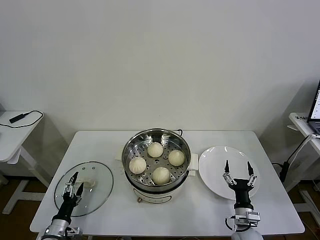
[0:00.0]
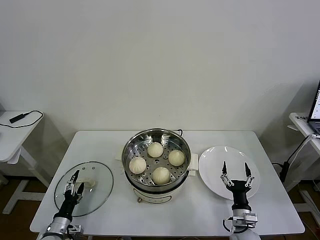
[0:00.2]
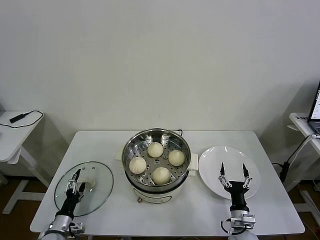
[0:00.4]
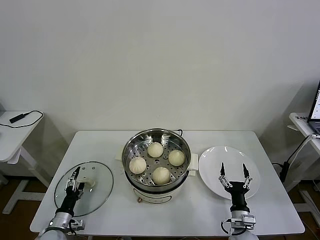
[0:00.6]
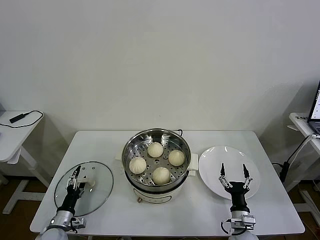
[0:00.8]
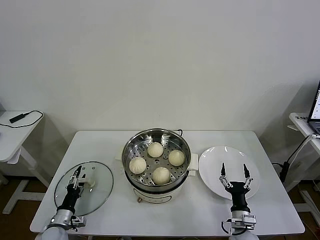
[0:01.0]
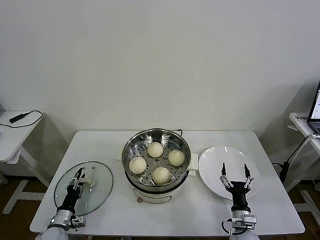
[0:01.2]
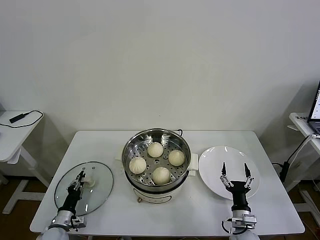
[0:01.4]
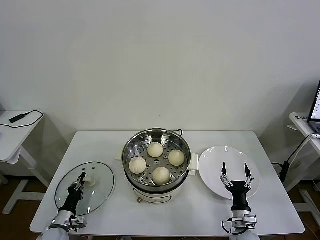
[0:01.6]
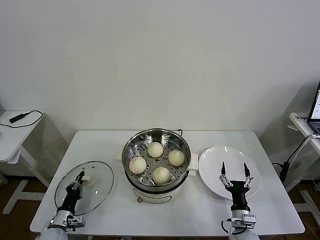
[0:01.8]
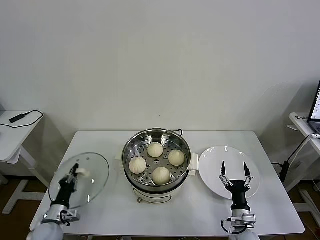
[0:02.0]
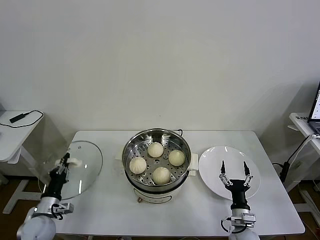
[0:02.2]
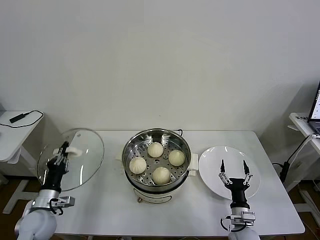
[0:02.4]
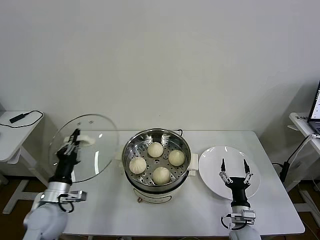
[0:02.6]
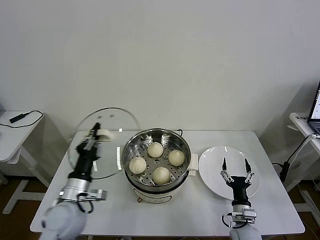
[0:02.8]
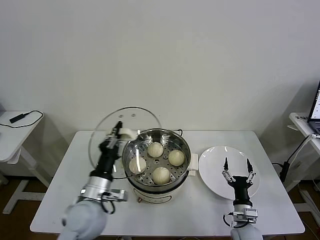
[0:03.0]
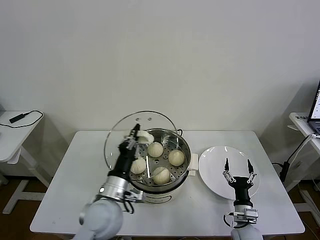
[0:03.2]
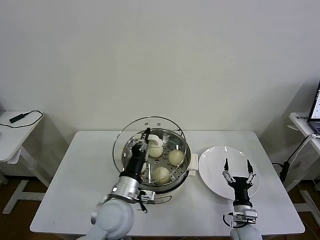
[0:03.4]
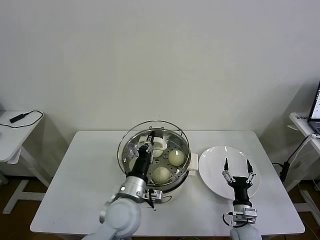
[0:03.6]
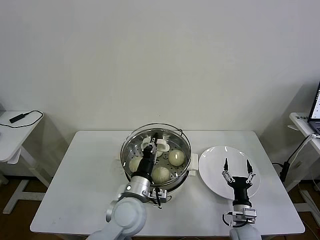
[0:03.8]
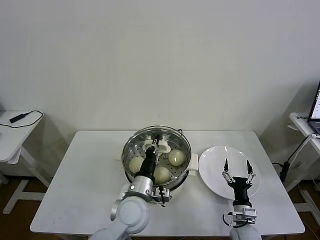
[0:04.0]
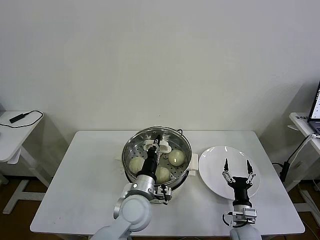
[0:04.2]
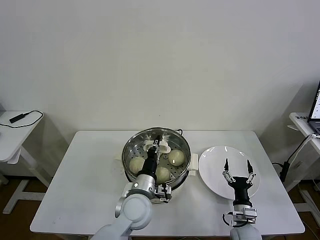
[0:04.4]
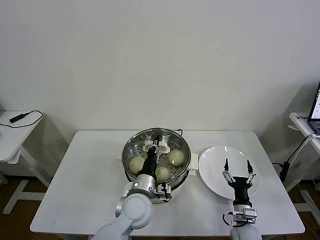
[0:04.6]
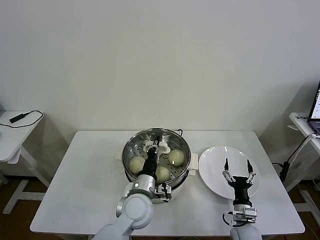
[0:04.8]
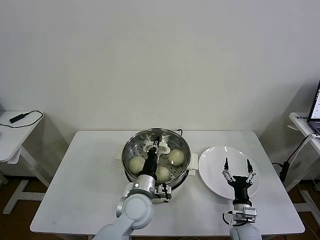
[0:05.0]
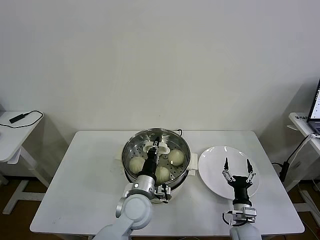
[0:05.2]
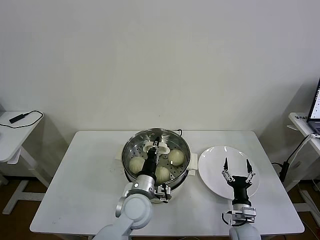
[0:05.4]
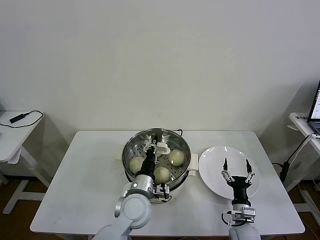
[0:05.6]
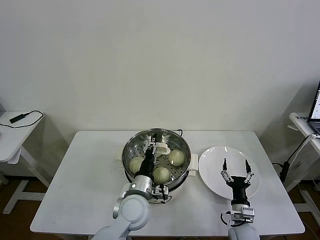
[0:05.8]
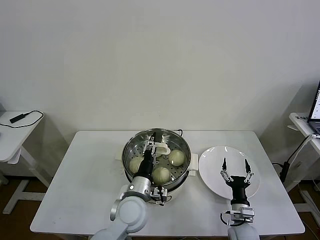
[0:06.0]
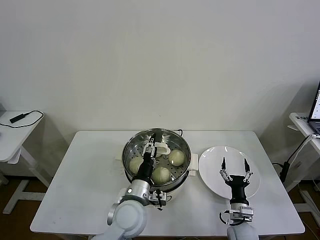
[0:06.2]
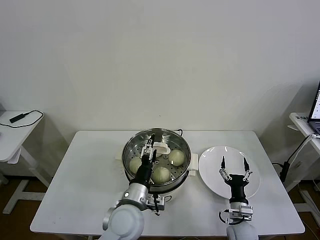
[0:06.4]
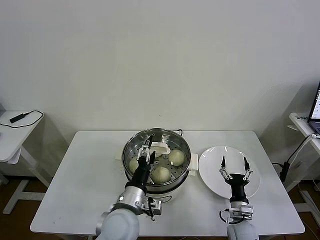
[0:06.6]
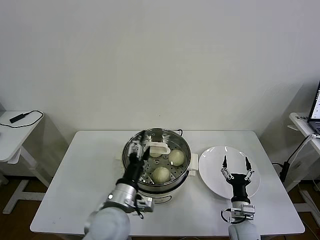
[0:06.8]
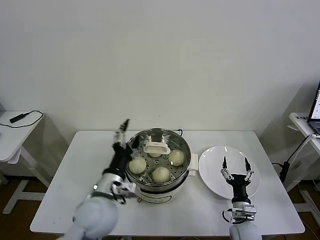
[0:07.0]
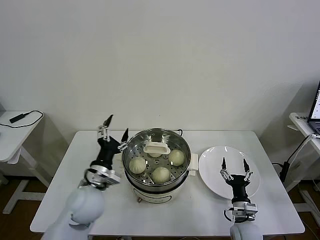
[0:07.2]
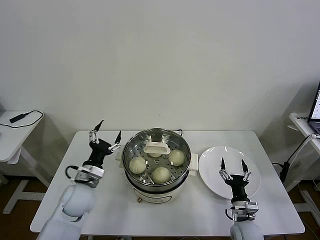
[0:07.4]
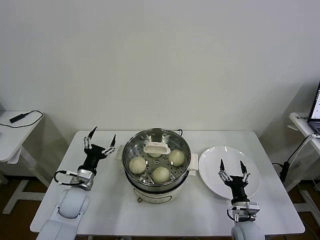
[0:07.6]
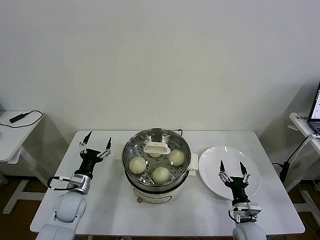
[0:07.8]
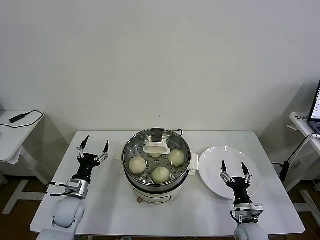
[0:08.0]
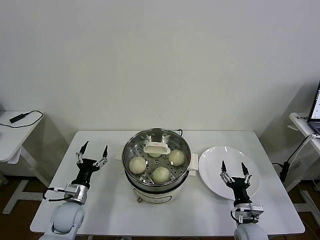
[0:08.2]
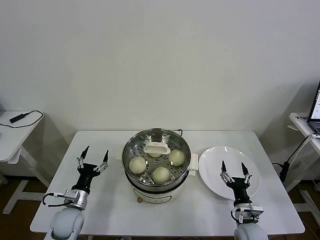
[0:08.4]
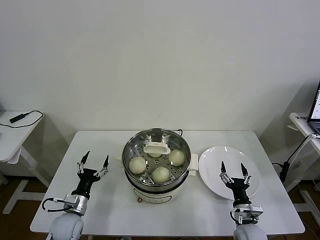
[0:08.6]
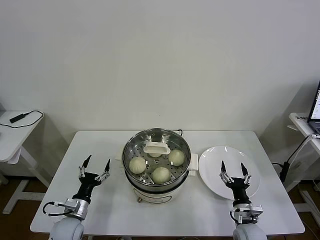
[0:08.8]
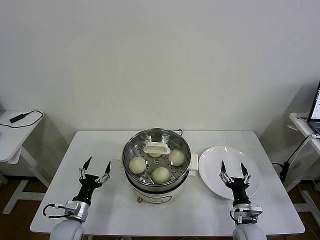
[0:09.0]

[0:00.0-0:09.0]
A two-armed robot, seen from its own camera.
Task of the whole recording: take steamed baozi put them in steamer then cover it.
Step, 0:01.8 to 0:06.0: Place the pot lid on the steamer with left gripper.
0:00.0 to 0:01.6: The left gripper closes up.
0:01.6 to 0:03.0: The left gripper moves upward and to the right, about 30 cm.
0:03.0 to 0:04.4: The left gripper shifts some 15 cm to the right.
0:04.4 to 0:06.0: The left gripper opens its fingers.
0:06.0 to 0:07.6: The left gripper heads to the left, covering roughly 20 cm, and opens its fingers.
0:07.6 to 0:09.0: The left gripper shifts about 10 cm downward and backward.
